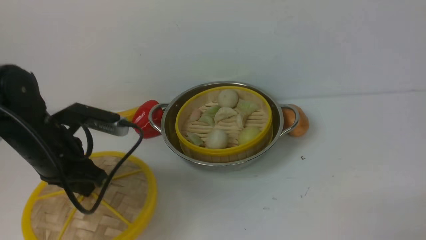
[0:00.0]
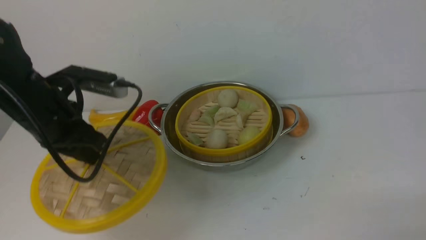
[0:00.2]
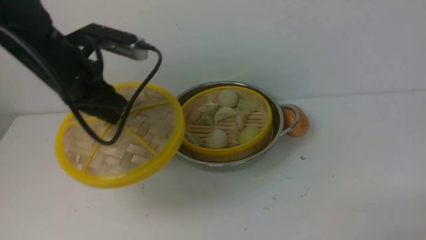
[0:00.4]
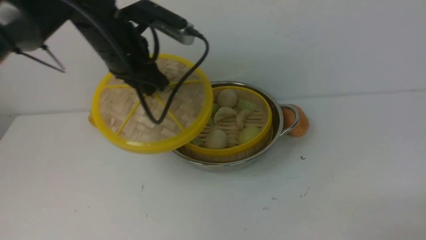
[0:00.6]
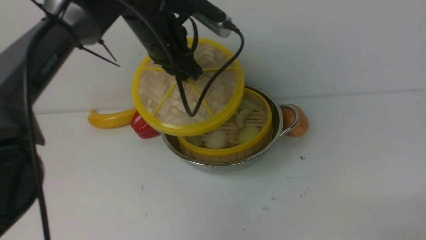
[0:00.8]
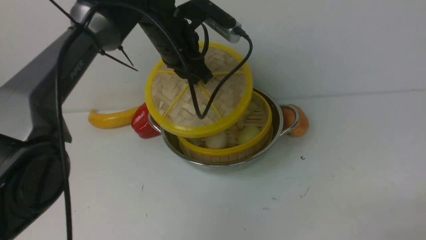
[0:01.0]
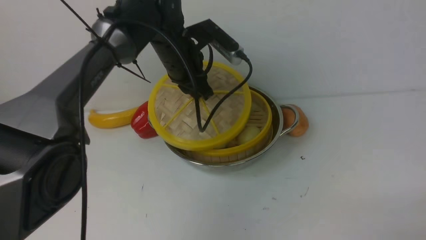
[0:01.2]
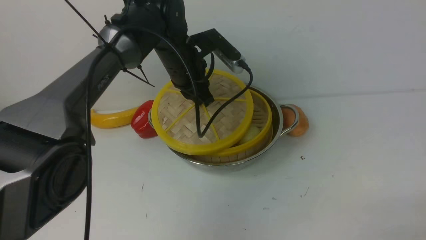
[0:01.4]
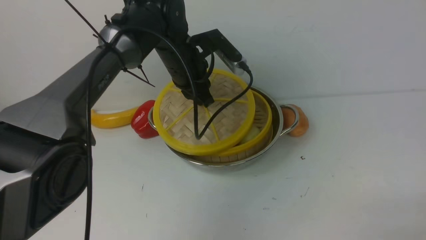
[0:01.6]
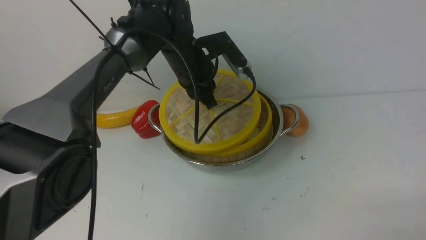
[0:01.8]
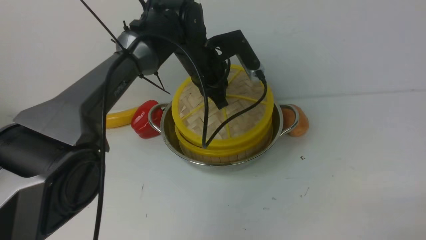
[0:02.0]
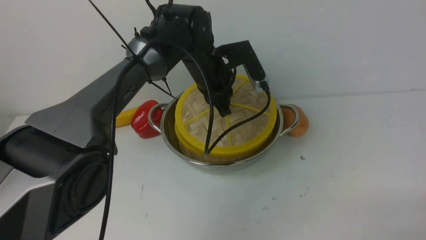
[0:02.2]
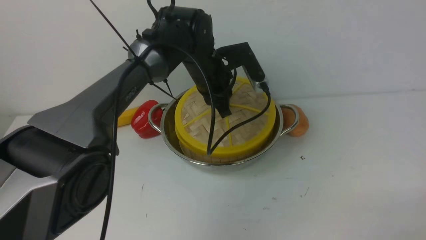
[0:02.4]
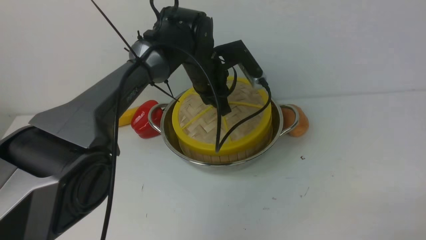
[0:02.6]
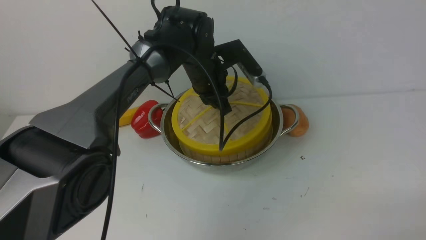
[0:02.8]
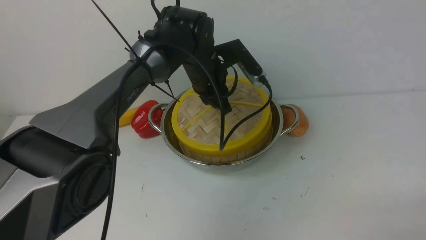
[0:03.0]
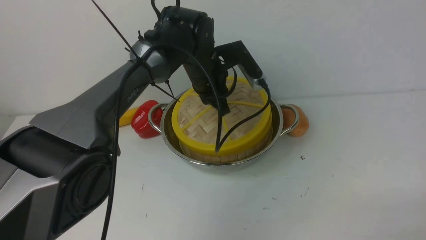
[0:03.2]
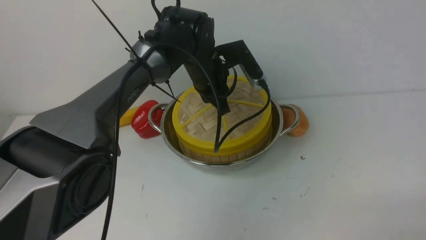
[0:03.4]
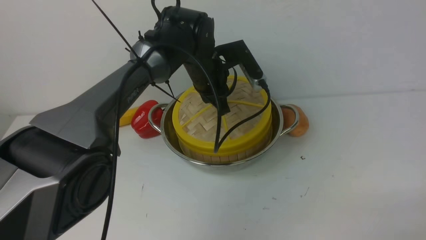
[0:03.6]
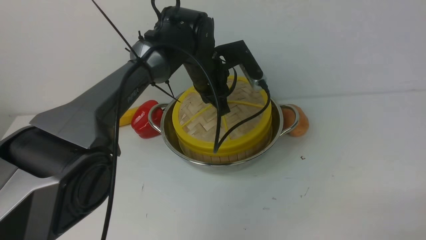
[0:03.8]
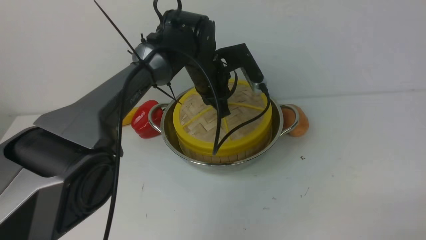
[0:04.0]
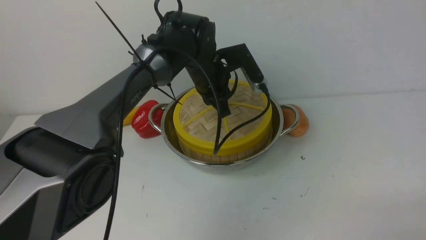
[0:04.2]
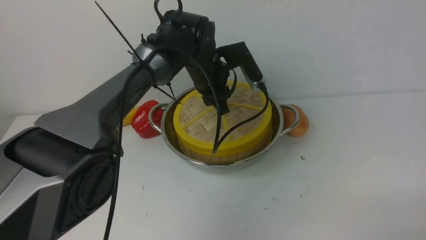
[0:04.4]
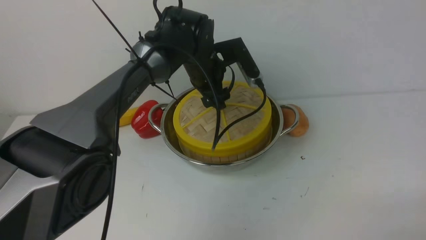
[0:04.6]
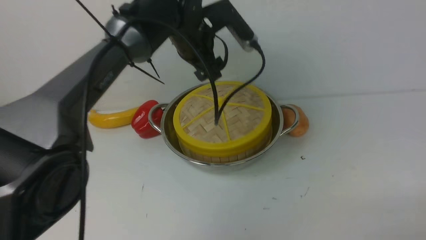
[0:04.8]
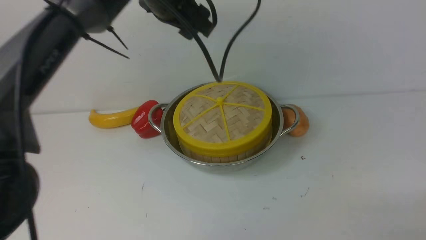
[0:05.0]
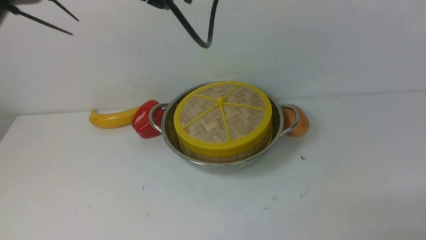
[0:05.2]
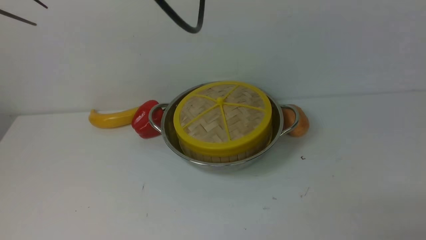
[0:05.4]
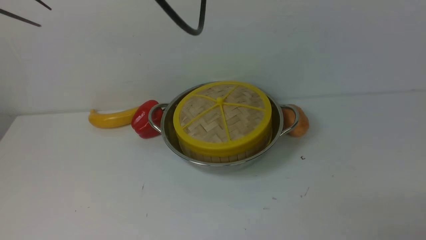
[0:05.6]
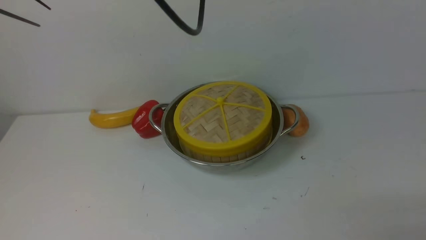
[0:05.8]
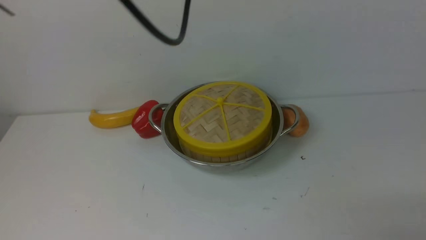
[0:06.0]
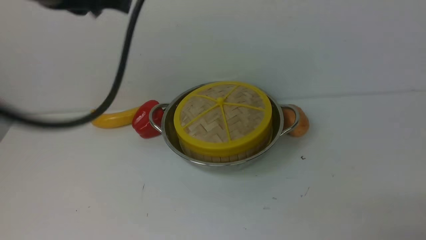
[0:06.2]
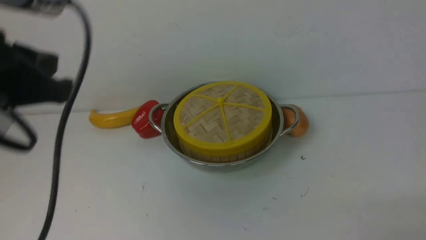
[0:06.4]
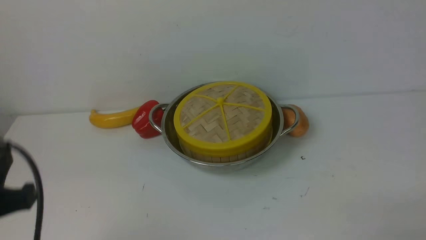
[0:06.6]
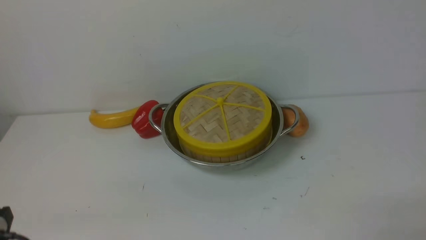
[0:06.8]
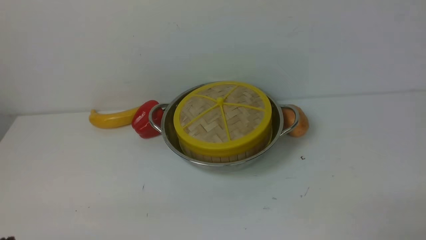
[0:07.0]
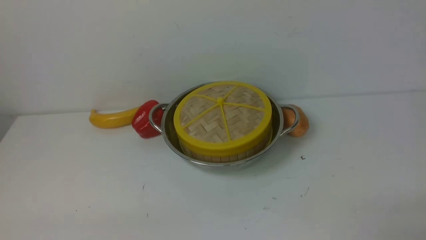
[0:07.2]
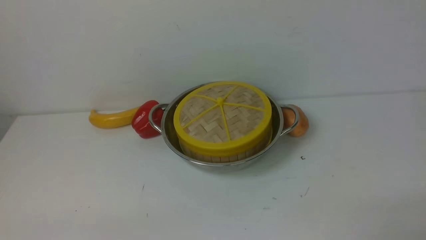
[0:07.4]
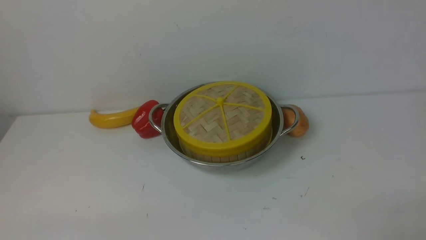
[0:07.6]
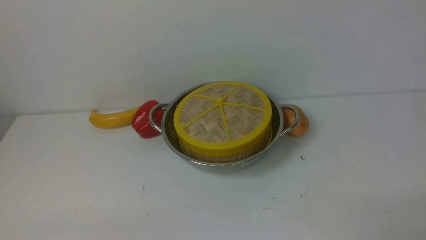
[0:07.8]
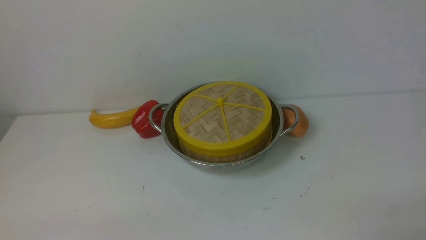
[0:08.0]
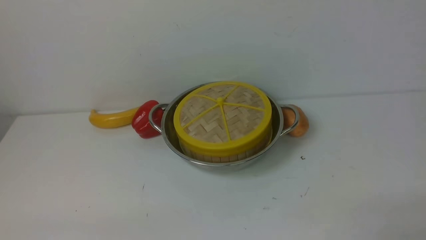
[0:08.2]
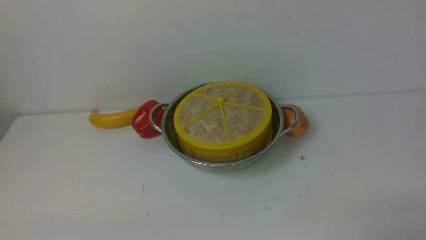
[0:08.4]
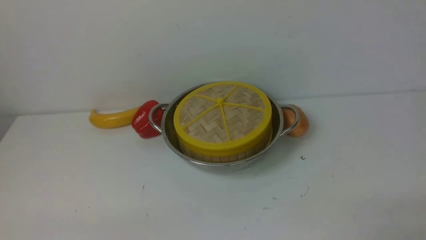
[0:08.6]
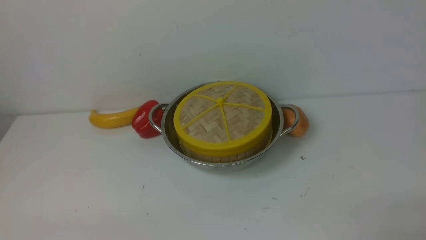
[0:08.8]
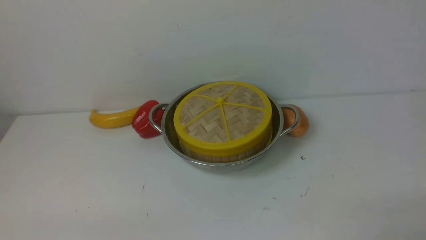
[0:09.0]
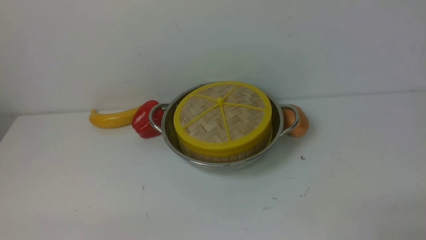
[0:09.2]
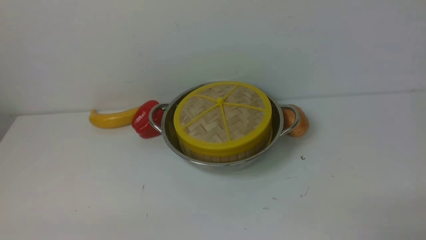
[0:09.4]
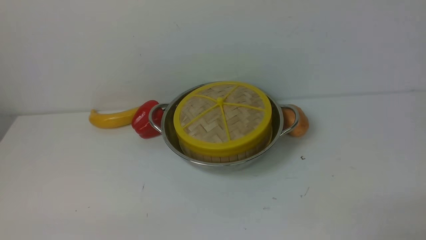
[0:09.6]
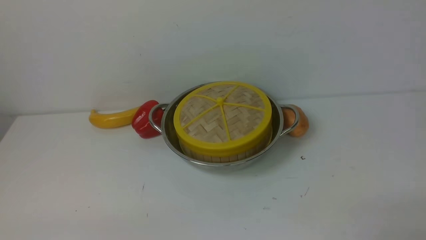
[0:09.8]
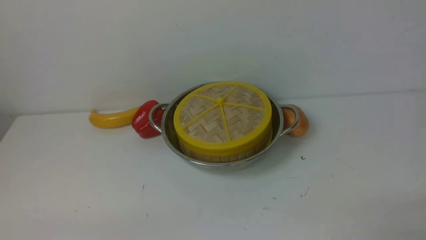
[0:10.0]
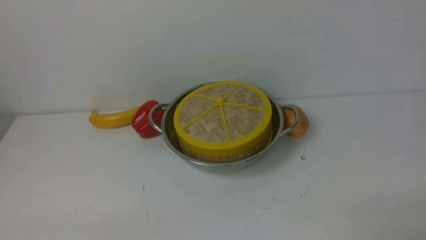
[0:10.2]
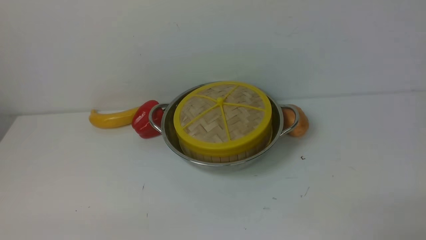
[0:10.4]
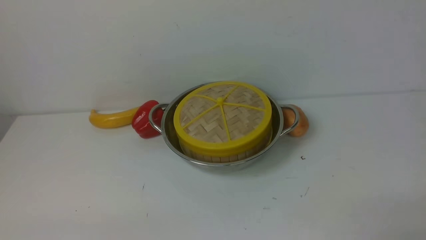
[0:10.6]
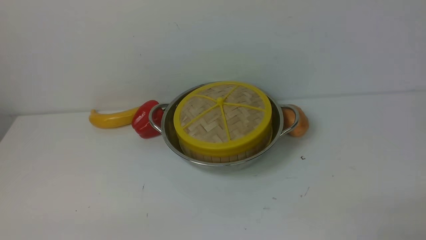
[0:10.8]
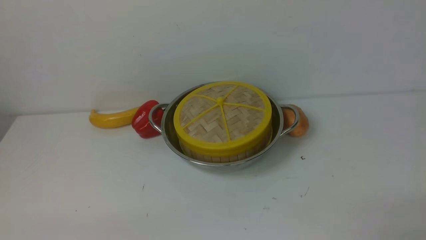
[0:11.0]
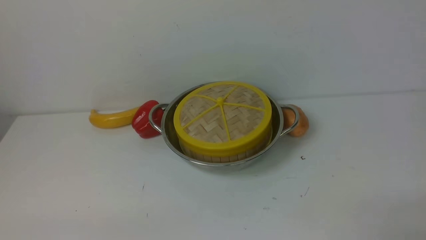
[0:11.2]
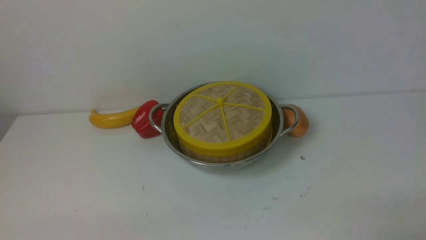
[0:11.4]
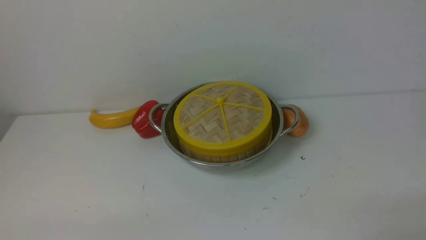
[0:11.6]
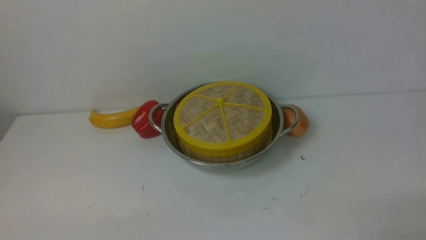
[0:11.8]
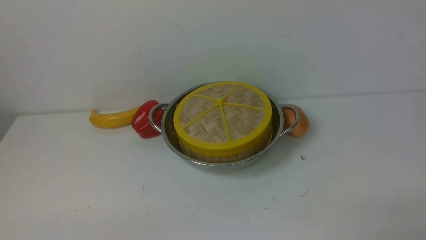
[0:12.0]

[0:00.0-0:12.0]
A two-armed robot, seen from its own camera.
Task of the whole recording: place the steamer in the pot on the white table, and put the lid on the steamer.
Step, 0:00.2 to 0:05.0: use the left arm to place the steamer lid on the steamer.
0:00.0 to 0:01.6: The left gripper goes about 25 cm forward and to the right.
0:03.0 to 0:04.4: The left gripper opens.
0:04.4 to 0:06.0: The left gripper moves upward, backward and to the left, some 30 cm, and closes.
0:06.0 to 0:07.6: The left gripper is displaced downward, backward and to the left by roughly 40 cm.
0:07.6 to 0:12.0: Both grippers stay put.
